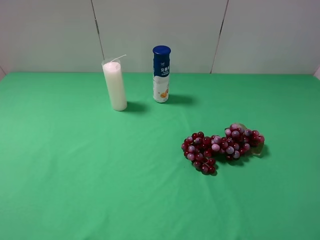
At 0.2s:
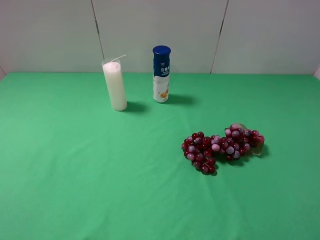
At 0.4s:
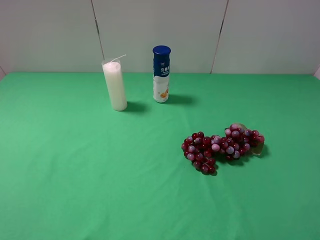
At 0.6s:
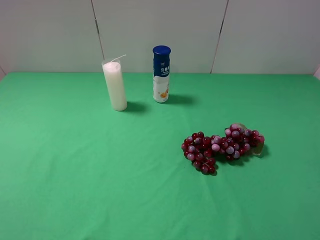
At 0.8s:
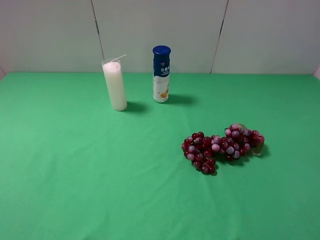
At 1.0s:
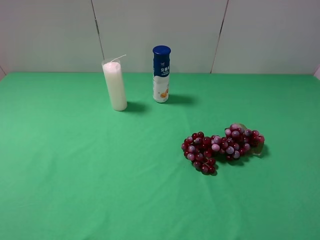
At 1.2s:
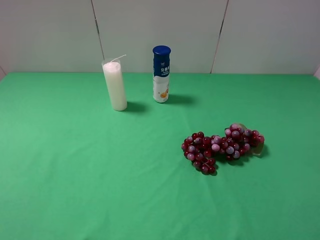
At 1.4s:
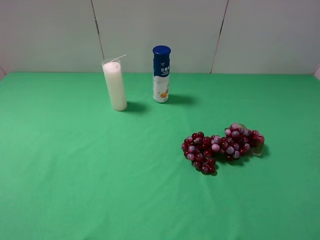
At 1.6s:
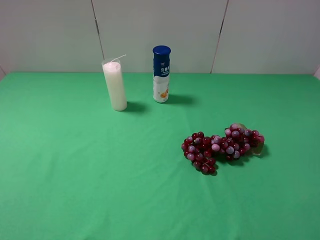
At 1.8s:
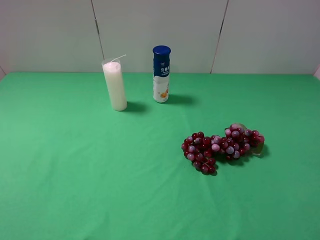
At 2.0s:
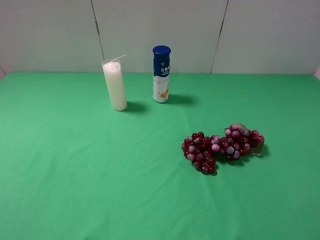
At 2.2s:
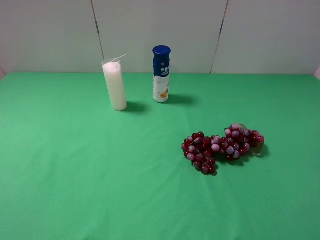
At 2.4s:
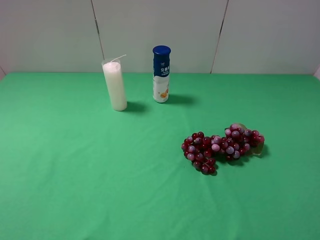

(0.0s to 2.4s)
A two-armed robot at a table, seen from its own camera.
Task of the whole recording: use the left gripper to pick up the item and transfer it from the left gripper to the right gripper.
1.2s - 2.4s: Both grippers stay put.

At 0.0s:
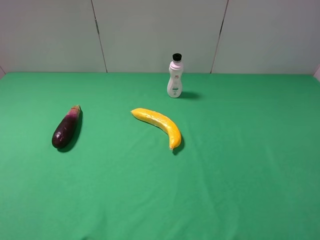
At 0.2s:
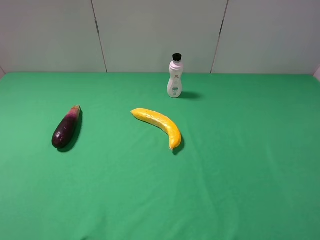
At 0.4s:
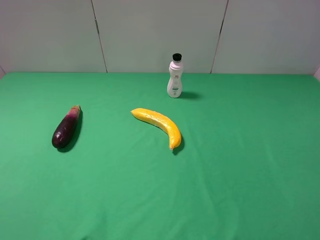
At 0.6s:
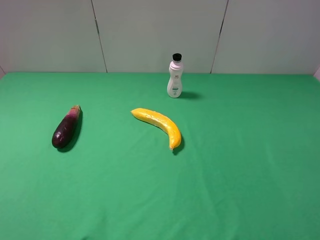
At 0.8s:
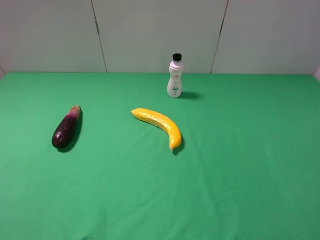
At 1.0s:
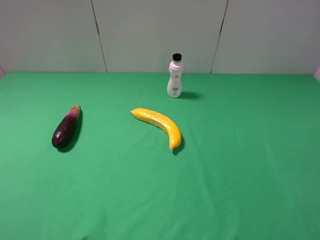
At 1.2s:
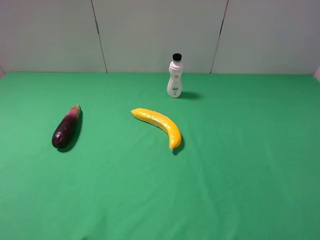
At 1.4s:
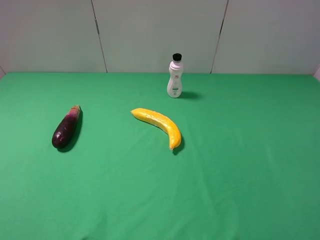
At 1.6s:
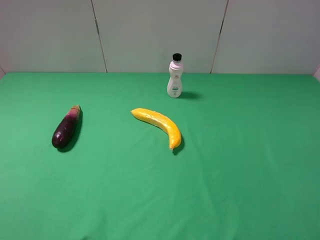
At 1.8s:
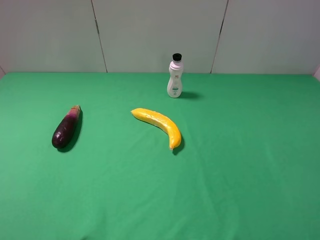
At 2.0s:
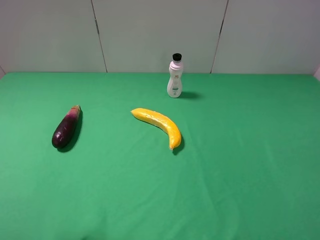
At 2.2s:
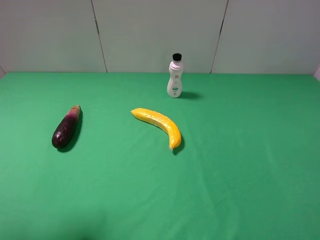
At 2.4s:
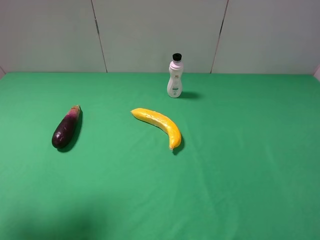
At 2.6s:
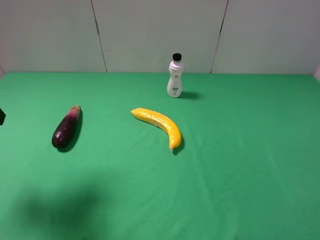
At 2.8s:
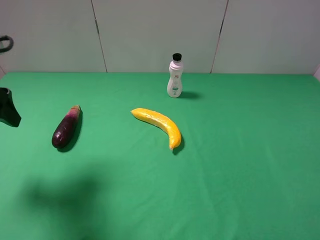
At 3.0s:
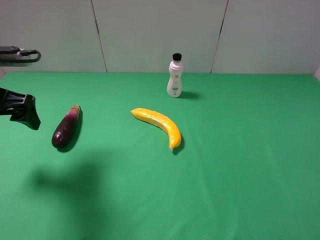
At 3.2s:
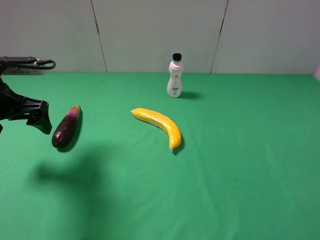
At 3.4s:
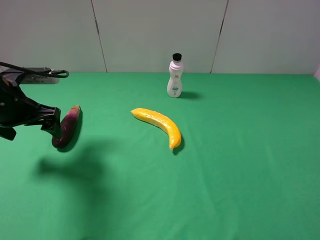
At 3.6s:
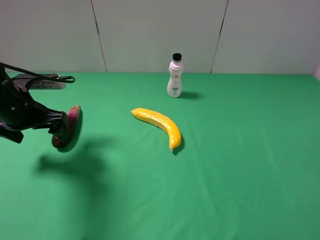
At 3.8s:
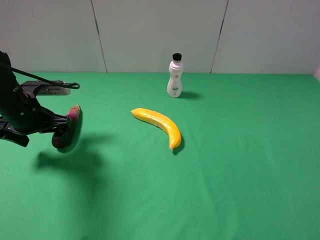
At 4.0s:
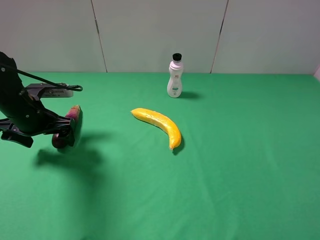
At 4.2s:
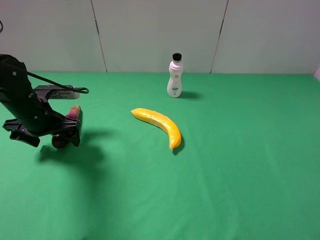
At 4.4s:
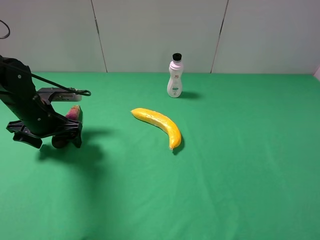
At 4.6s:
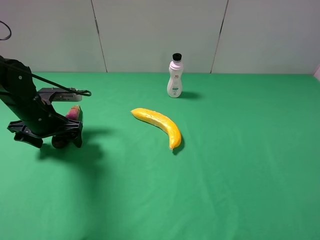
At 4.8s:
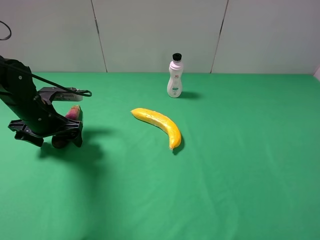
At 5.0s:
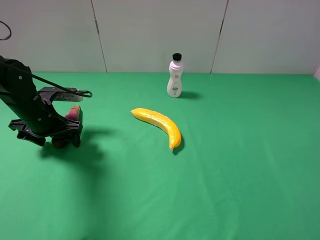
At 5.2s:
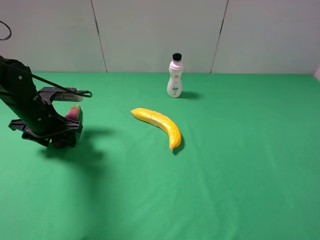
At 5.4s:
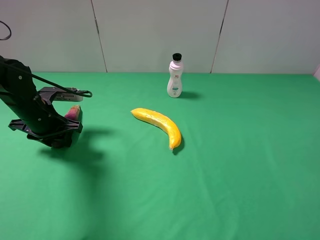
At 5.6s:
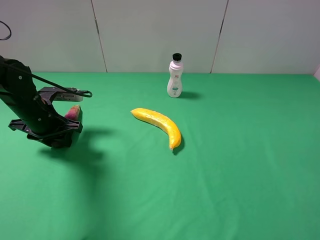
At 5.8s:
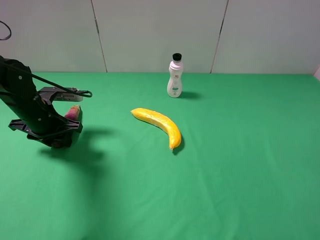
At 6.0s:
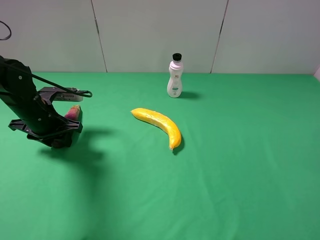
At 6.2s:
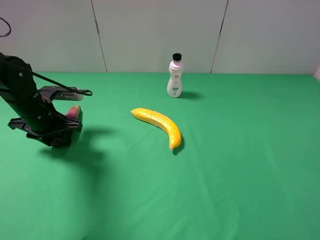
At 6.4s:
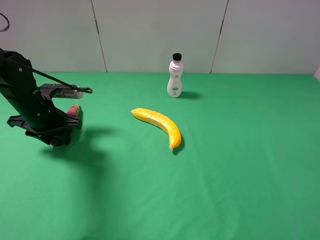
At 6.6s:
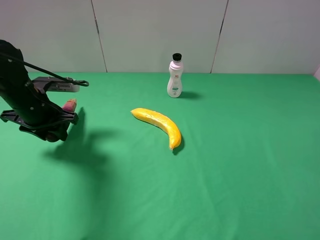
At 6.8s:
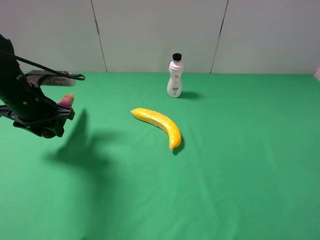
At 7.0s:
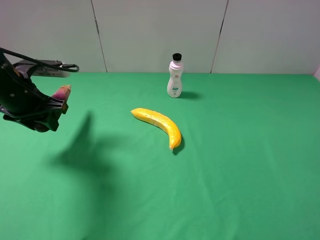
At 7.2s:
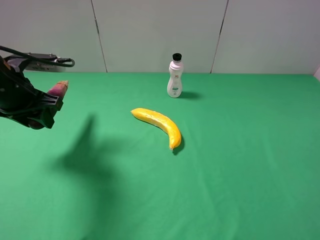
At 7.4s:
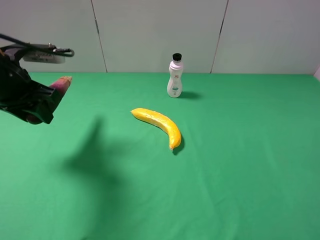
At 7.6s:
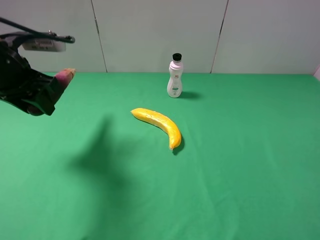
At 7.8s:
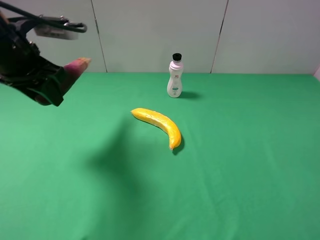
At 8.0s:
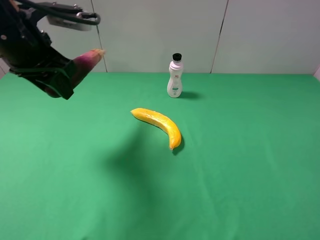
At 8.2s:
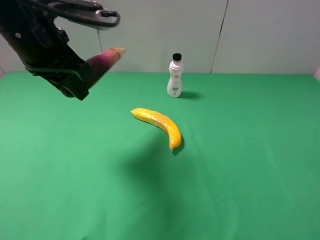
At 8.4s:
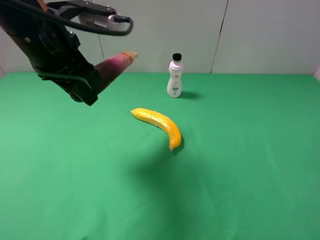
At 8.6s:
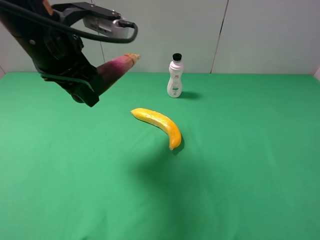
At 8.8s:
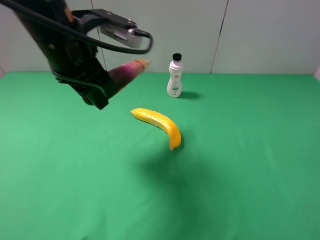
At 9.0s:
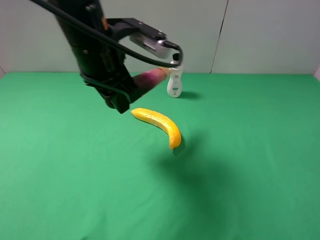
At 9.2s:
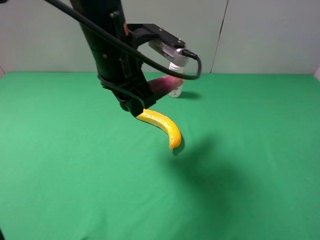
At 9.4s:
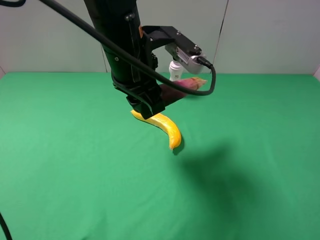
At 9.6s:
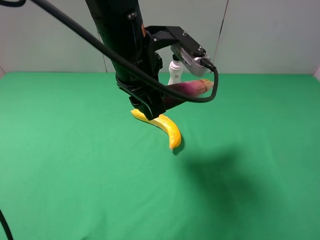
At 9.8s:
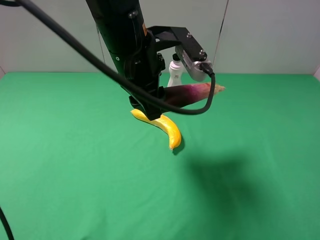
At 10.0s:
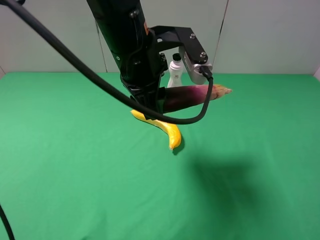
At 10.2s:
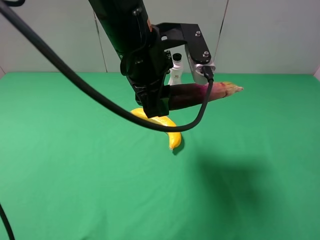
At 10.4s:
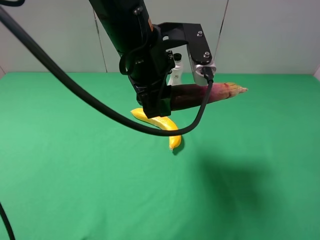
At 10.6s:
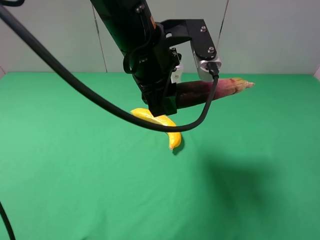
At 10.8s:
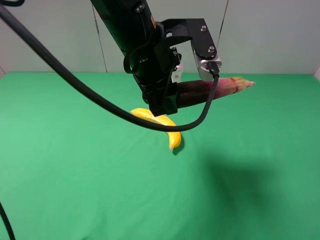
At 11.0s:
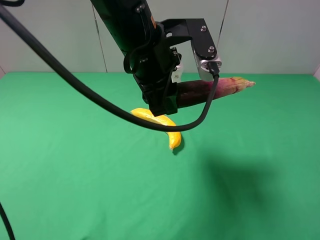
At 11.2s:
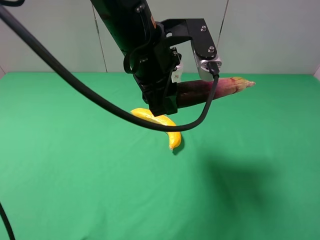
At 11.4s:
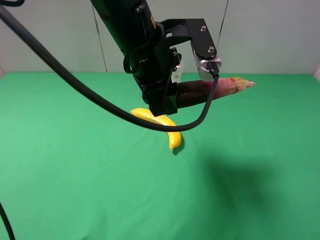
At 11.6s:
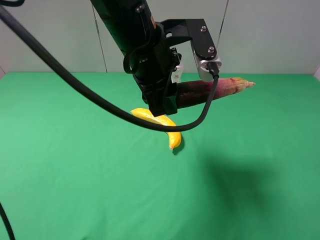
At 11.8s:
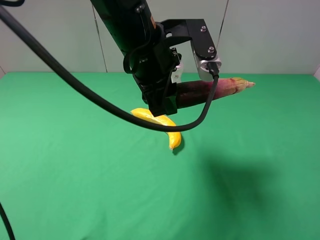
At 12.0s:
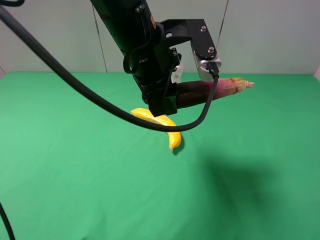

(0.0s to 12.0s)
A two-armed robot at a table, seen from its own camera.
Task of the whole recording: use the left gripper to pick up the item and transfer it from the left gripper to the right gripper.
Step, 0.0s - 5.6s: Use the left gripper to grab the eggplant on the left side of the table.
1.6s - 3.0s: The left gripper heads forward, covering roughly 25 cm.
3.0s - 4.4s: The left gripper is displaced downward and forward by about 15 cm.
4.4s - 6.0s: The left gripper closes its fingers.
6.0s - 7.6s: The left gripper travels upward by some 15 cm.
7.6s - 9.0s: The left gripper heads to the right, covering approximately 20 cm.
9.0s - 10.4s: The left gripper travels to the right by some 5 cm.
10.4s - 12.0s: The two grippers keep their place.

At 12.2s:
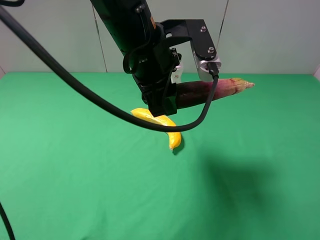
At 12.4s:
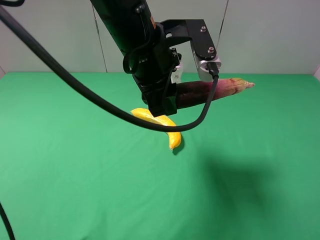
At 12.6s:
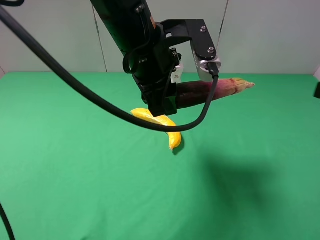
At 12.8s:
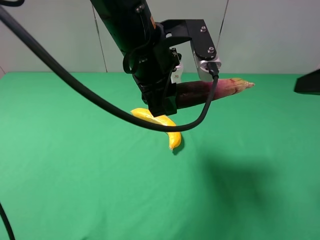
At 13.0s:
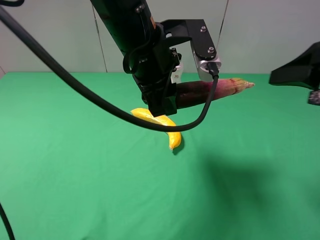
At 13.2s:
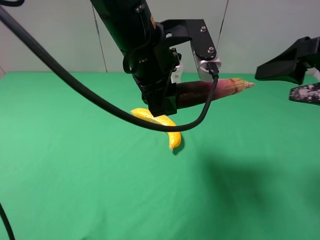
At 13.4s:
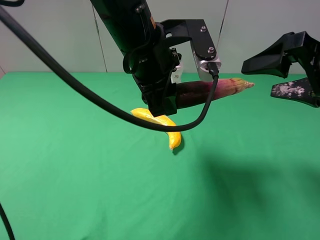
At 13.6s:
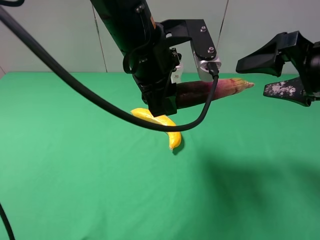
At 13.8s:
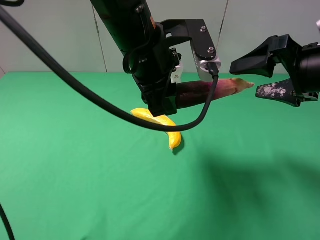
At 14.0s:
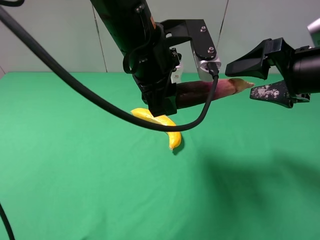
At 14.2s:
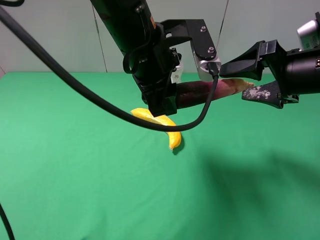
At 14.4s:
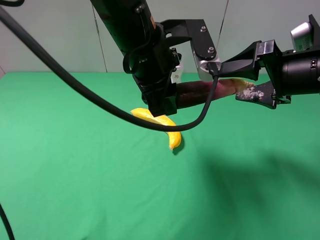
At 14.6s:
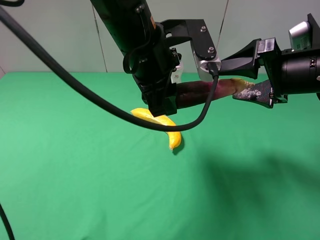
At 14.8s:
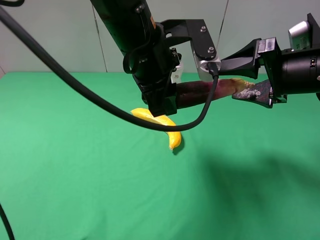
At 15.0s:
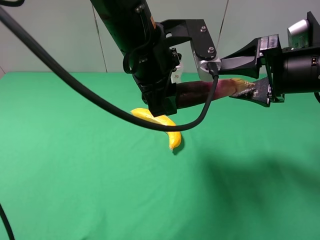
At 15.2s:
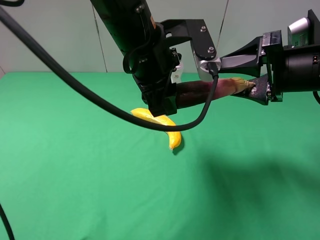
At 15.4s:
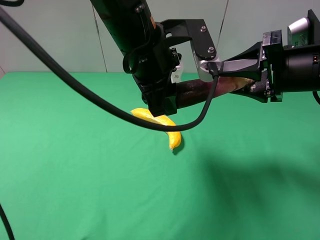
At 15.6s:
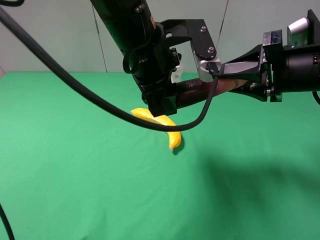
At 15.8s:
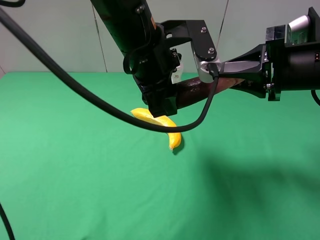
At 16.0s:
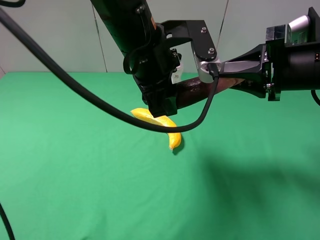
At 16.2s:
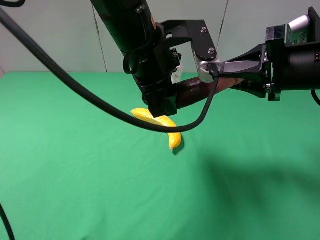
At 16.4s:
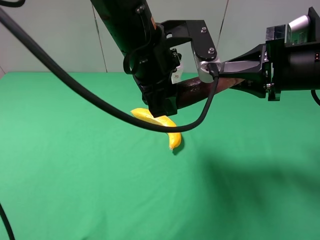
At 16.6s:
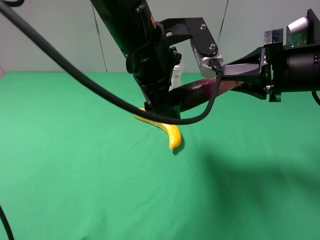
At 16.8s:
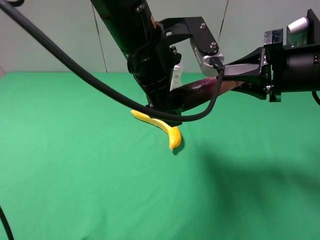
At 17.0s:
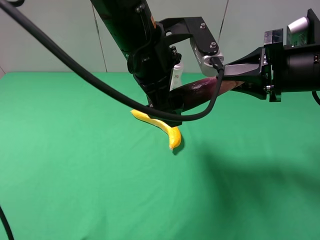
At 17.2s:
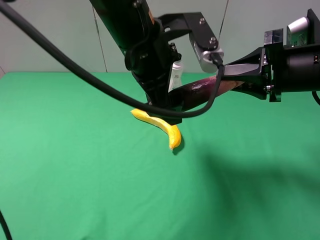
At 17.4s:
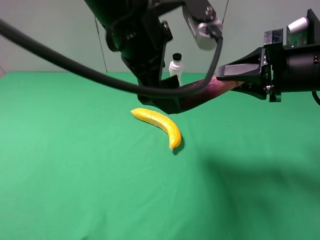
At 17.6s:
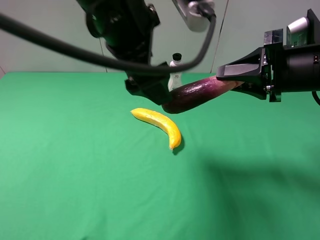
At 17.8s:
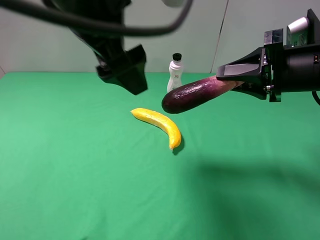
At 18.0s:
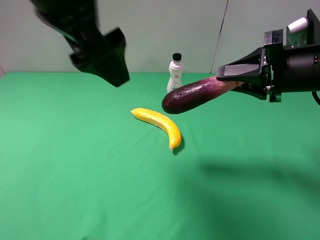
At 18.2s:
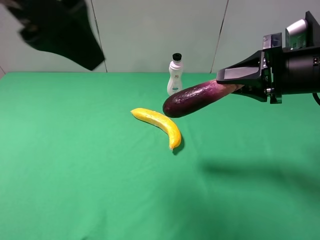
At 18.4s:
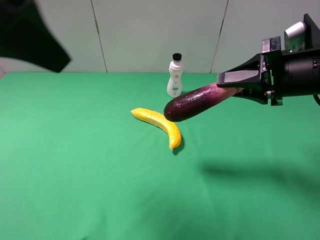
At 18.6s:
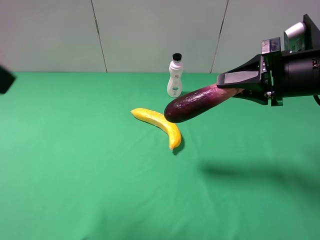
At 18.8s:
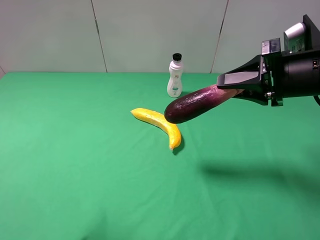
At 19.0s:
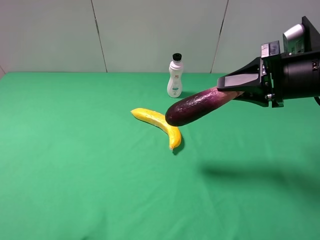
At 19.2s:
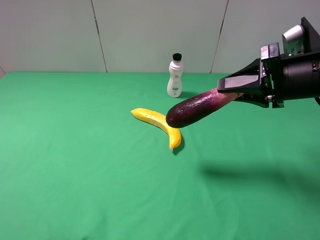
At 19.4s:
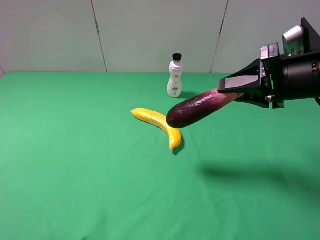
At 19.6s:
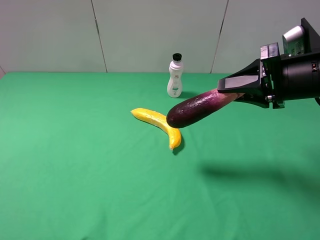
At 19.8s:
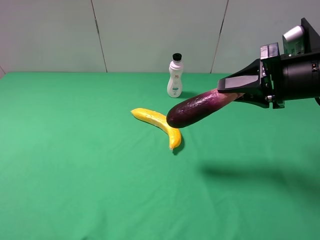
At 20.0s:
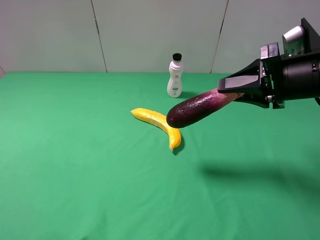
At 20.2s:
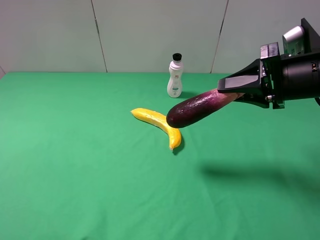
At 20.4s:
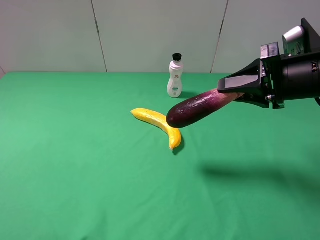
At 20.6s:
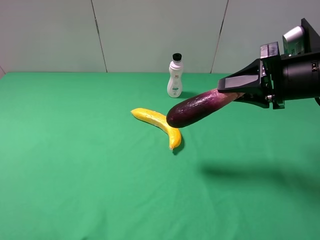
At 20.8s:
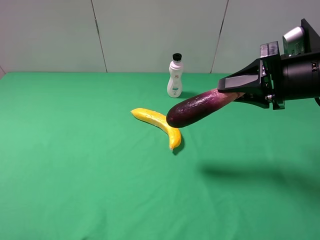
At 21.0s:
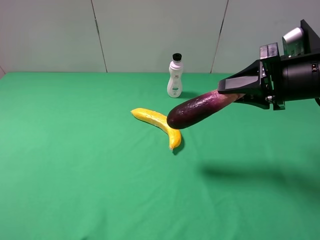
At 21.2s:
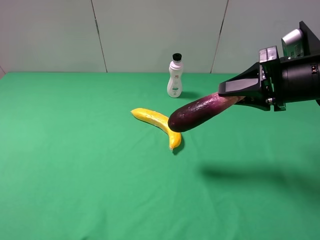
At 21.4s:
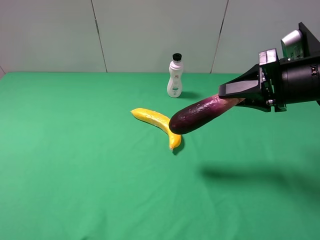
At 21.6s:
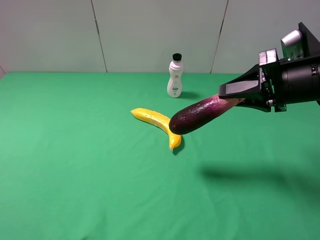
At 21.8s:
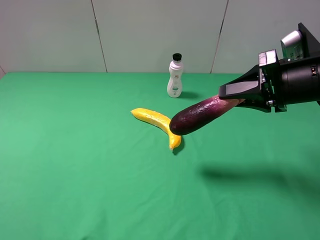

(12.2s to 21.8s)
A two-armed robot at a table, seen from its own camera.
Task of the whole recording: use the left gripper to pick up the item and transfer it from the left gripper to the right gripper.
Step, 12.2s - 17.2s: Pass the eggplant to the right gripper.
12.2s - 13.8s: The right gripper moves forward, approximately 15 cm.
13.8s - 15.4s: The right gripper closes its fingers.
15.4s - 17.0s: The left gripper opens its fingers. Meanwhile the right gripper closes its fingers.
17.0s - 18.6s: The left gripper goes about 30 cm to the left, backward and upward.
18.6s - 20.2s: The left gripper moves downward, backward and to the left, some 20 cm.
